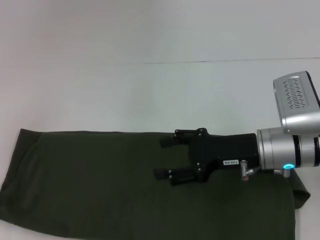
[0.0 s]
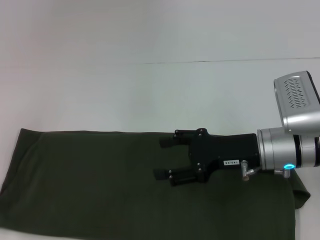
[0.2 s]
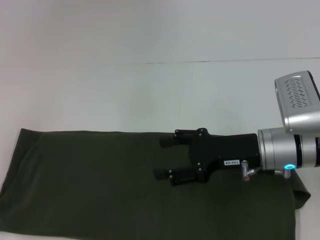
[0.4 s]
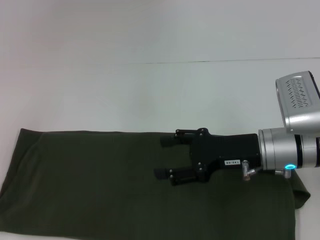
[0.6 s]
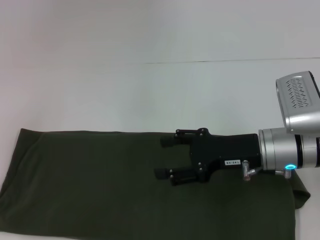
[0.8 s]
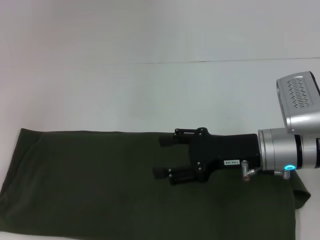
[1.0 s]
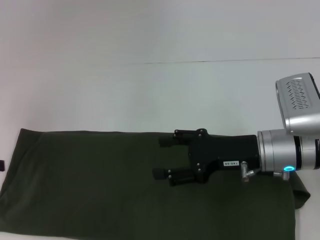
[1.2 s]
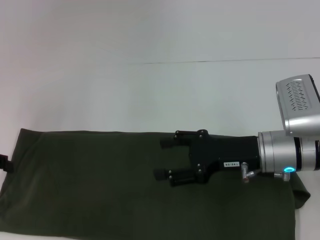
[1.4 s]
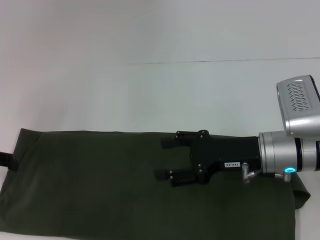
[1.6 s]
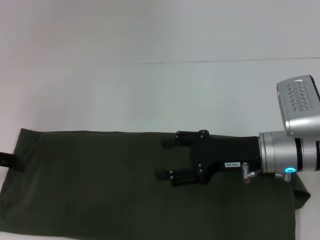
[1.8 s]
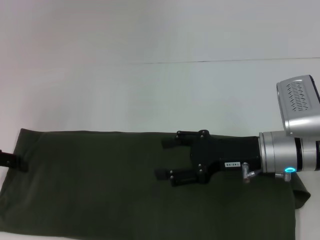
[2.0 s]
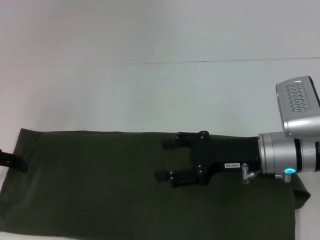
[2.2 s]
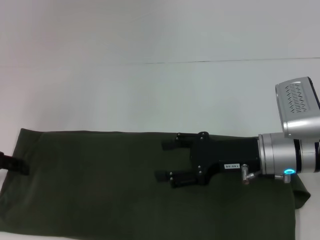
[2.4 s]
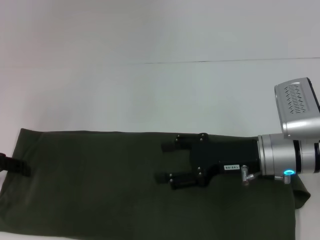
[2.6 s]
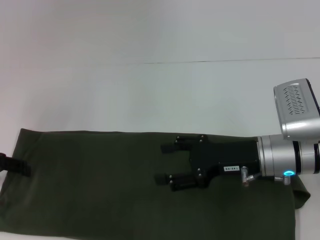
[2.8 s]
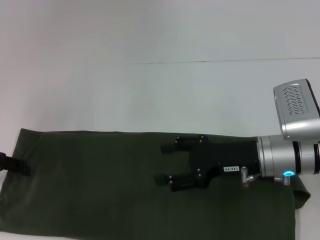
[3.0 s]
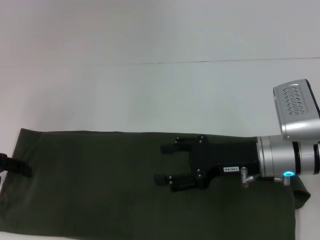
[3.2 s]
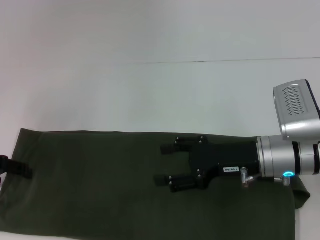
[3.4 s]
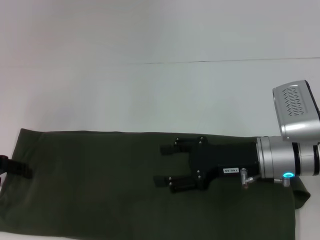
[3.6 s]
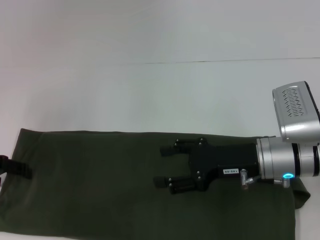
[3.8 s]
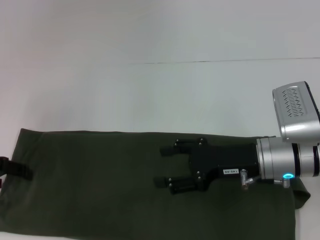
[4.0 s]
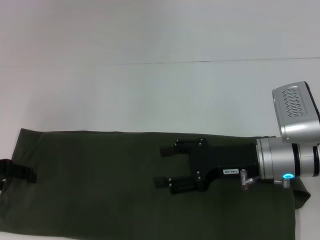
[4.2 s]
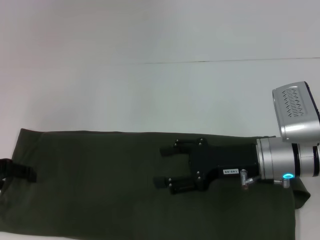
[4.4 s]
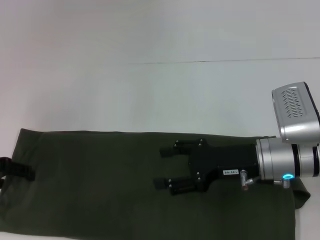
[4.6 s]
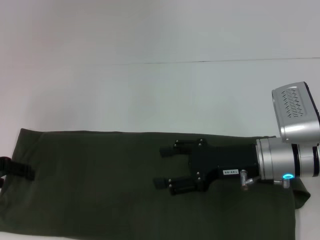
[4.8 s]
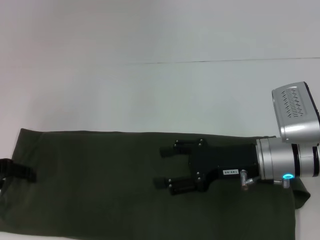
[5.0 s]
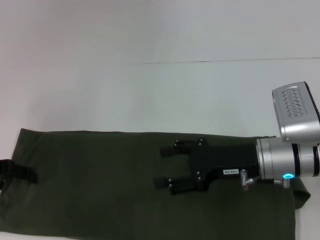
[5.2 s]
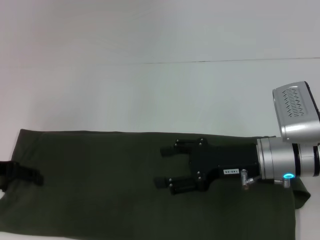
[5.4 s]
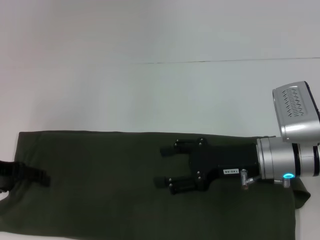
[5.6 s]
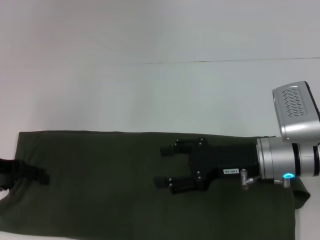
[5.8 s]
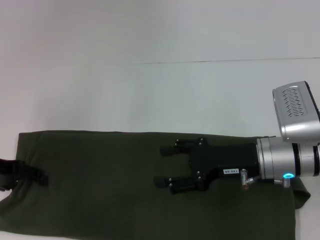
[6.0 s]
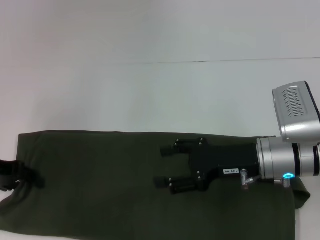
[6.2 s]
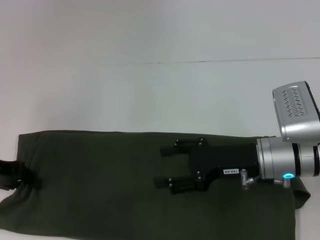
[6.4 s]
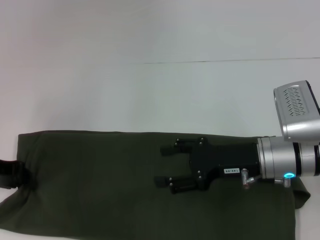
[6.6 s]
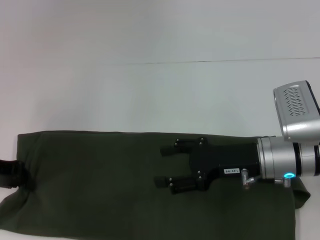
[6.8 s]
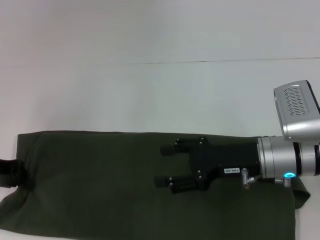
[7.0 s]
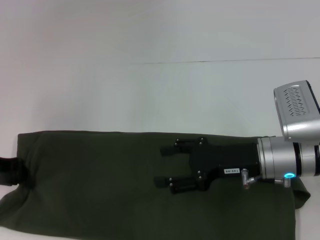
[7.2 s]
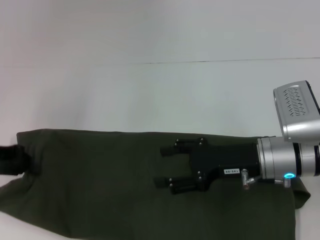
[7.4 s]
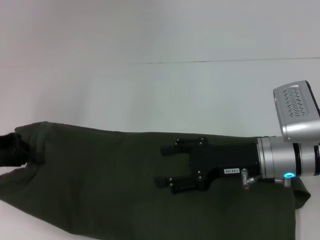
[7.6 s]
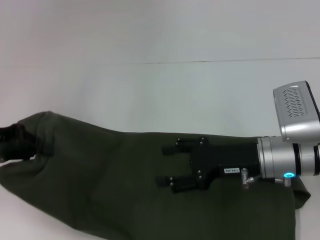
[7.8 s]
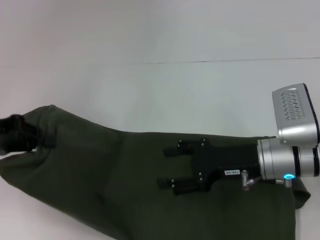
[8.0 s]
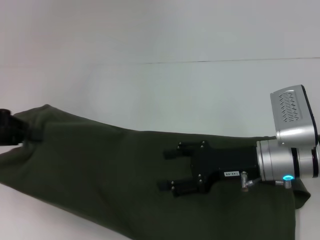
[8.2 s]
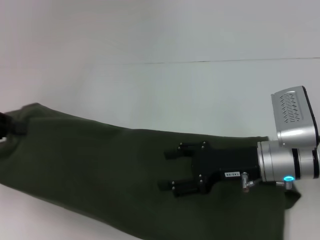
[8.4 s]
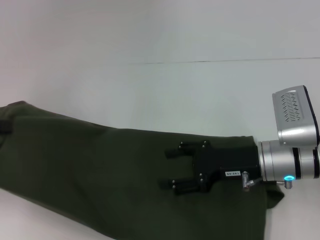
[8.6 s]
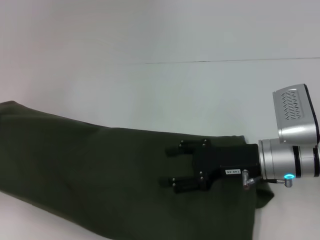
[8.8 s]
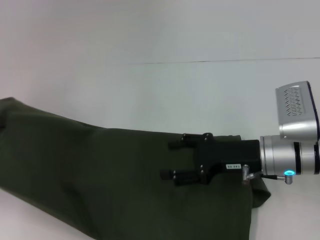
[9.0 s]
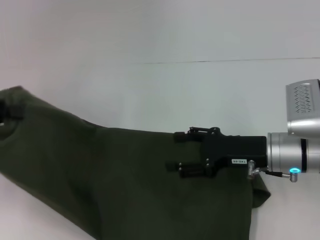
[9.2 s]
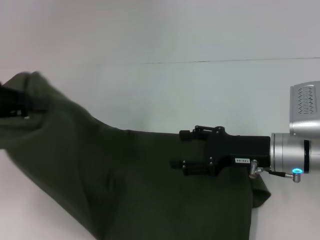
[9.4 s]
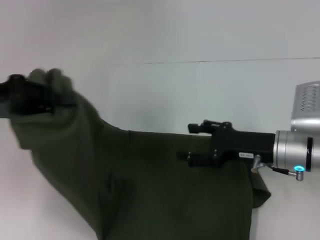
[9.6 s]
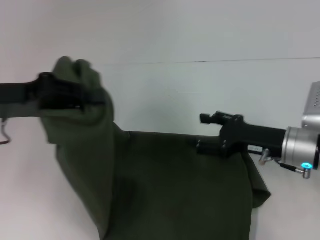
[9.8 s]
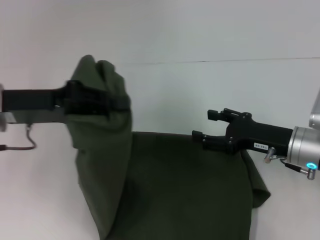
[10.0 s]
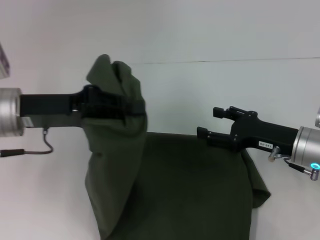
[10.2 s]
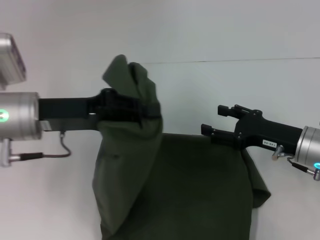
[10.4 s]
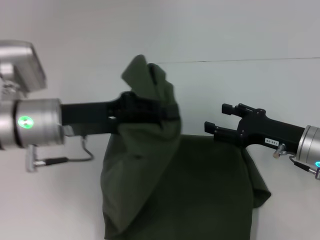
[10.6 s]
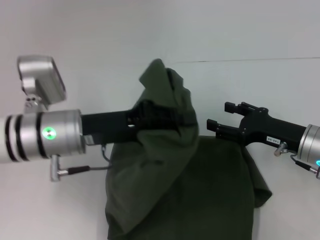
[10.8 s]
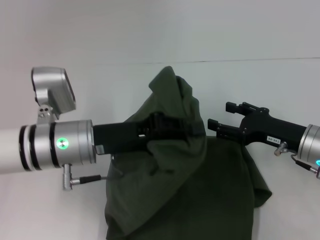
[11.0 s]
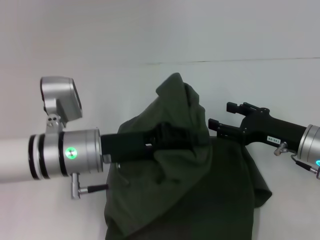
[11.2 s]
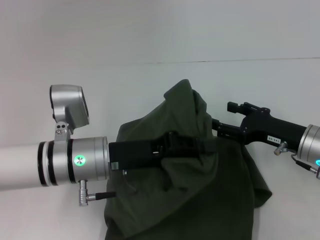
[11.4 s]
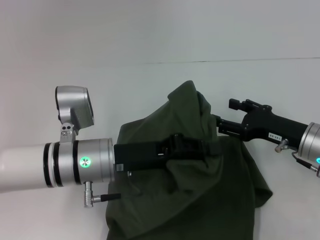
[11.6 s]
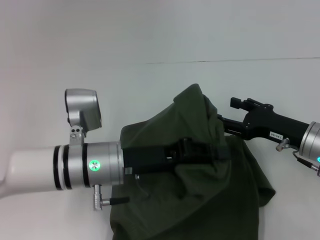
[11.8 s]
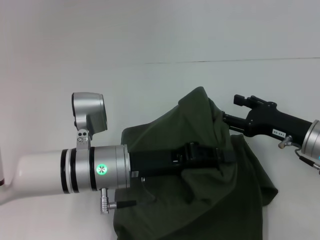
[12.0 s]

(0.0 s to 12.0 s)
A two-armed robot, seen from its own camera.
0.0 s - 1.6 s: The left gripper moves forward, approximately 5 cm, and opens its fingers.
1.6 s - 3.0 s: The grippers move only a little.
3.0 s - 4.4 s: Both grippers stay put.
6.0 s - 7.6 s: The left gripper closes up.
7.6 s - 9.0 s: The left gripper is displaced to the left by roughly 5 cm.
9.0 s - 10.4 s: The right gripper goes some 5 cm to the right, while the left gripper heads to the right, covering about 20 cm.
10.4 s - 12.0 s: The left gripper goes some 15 cm to the right and downward.

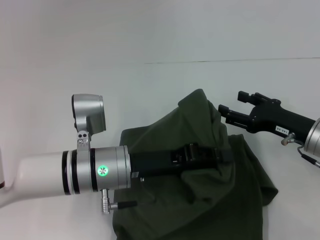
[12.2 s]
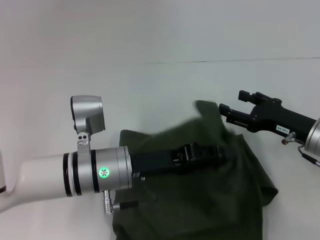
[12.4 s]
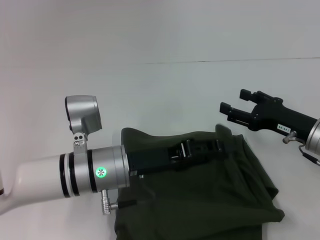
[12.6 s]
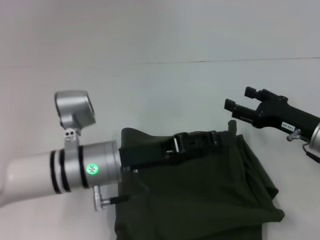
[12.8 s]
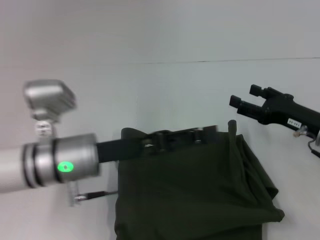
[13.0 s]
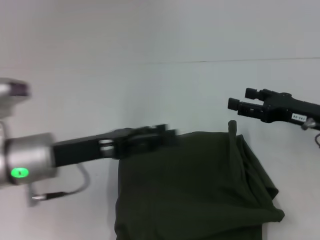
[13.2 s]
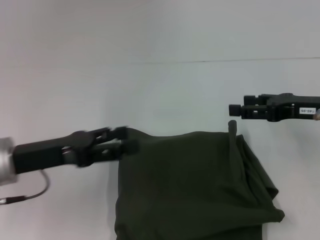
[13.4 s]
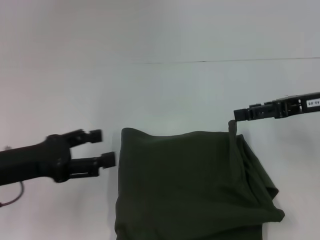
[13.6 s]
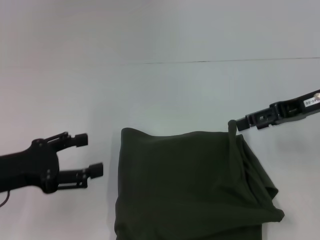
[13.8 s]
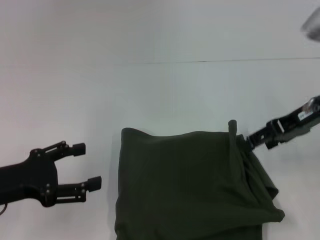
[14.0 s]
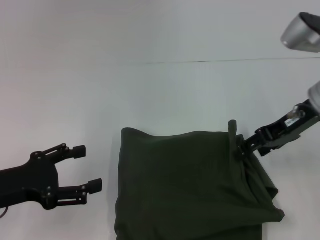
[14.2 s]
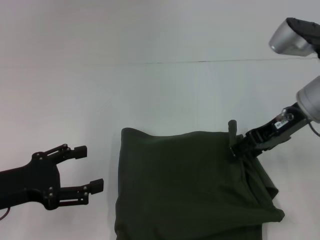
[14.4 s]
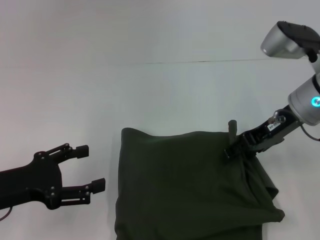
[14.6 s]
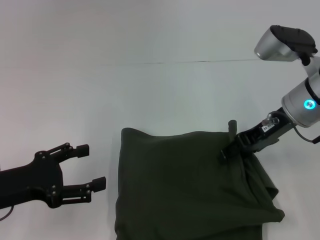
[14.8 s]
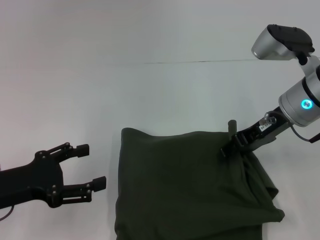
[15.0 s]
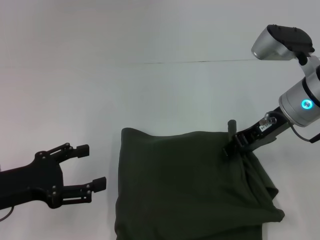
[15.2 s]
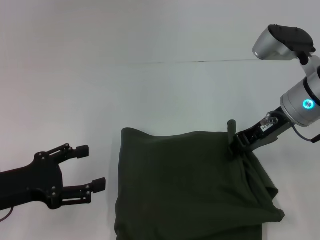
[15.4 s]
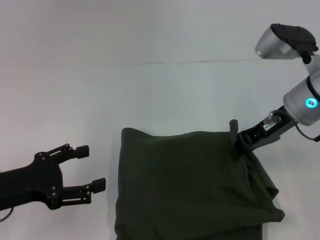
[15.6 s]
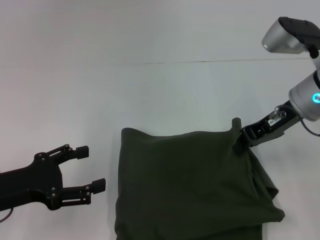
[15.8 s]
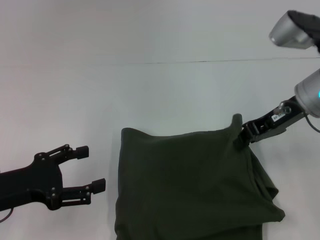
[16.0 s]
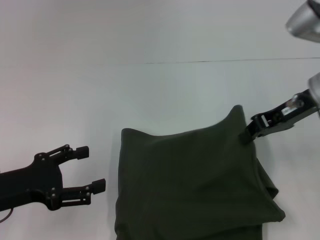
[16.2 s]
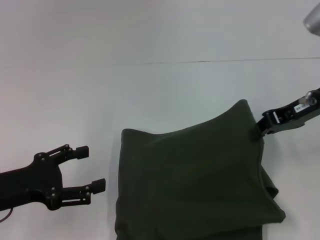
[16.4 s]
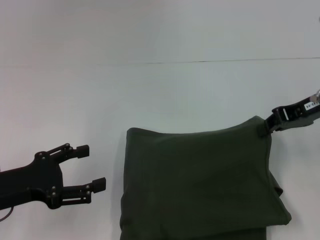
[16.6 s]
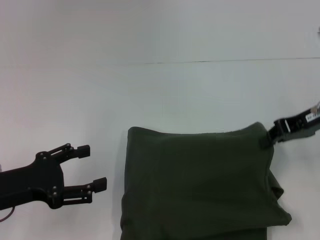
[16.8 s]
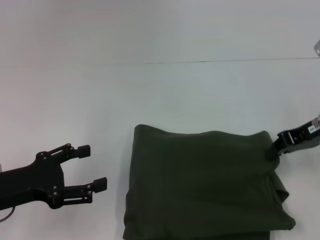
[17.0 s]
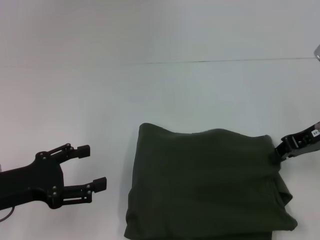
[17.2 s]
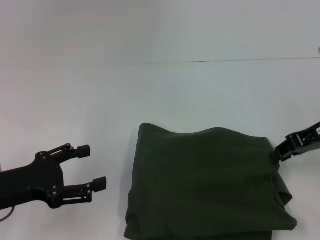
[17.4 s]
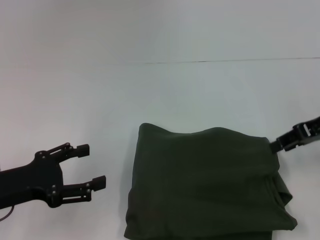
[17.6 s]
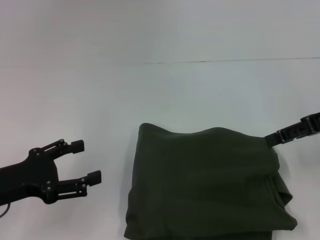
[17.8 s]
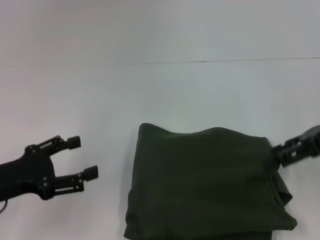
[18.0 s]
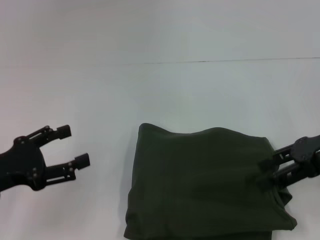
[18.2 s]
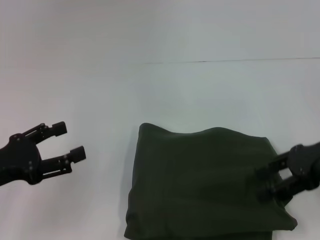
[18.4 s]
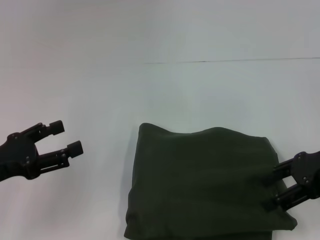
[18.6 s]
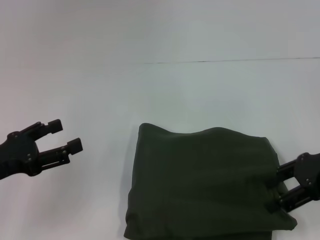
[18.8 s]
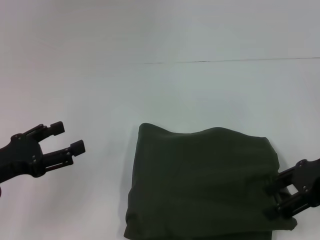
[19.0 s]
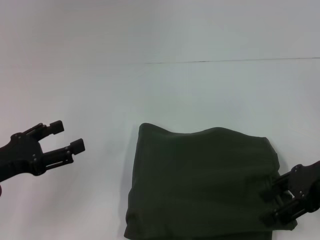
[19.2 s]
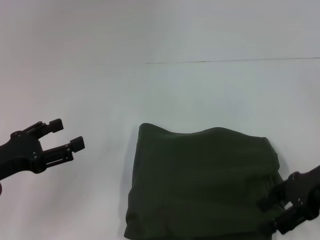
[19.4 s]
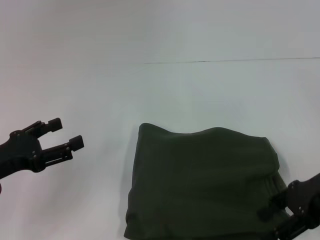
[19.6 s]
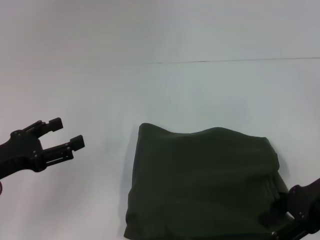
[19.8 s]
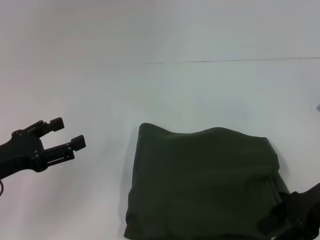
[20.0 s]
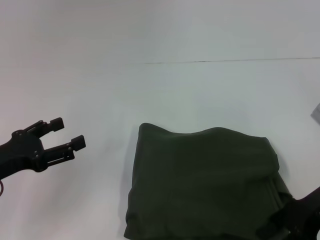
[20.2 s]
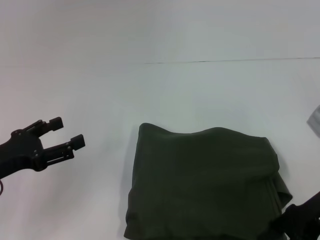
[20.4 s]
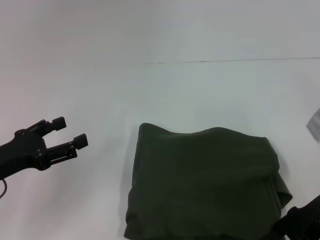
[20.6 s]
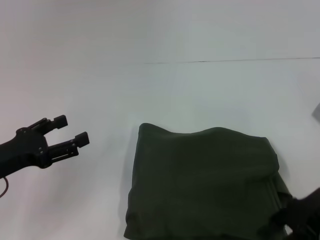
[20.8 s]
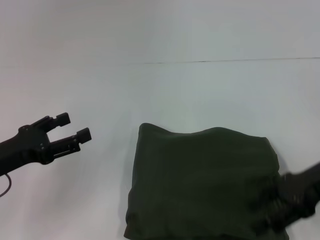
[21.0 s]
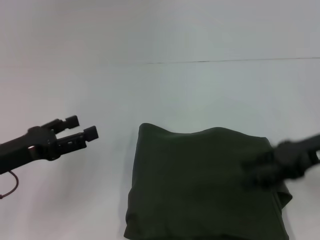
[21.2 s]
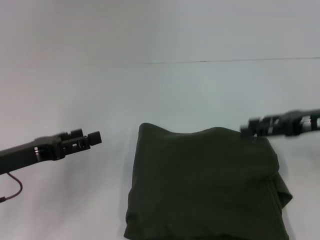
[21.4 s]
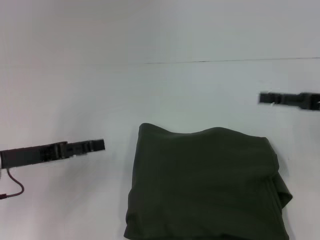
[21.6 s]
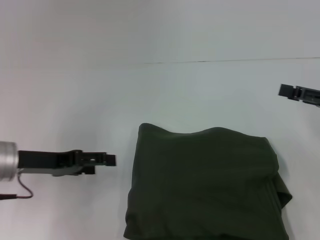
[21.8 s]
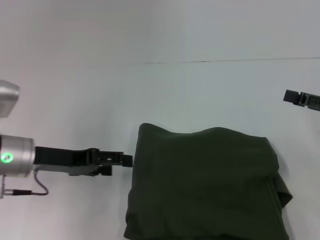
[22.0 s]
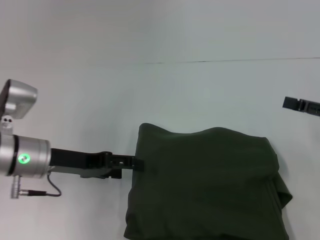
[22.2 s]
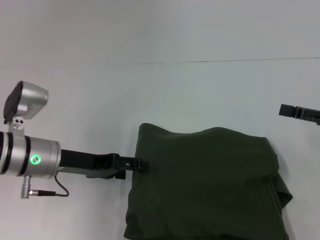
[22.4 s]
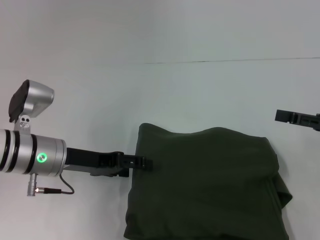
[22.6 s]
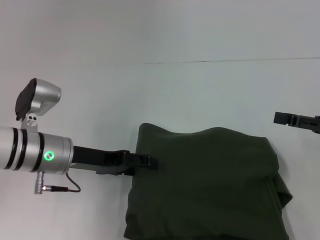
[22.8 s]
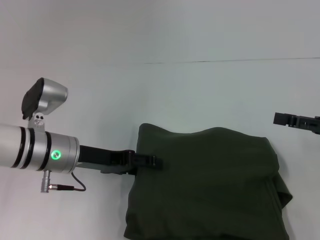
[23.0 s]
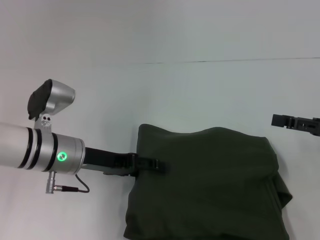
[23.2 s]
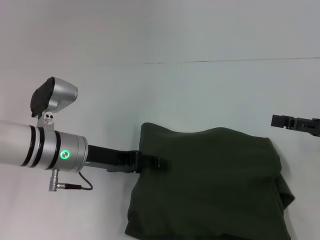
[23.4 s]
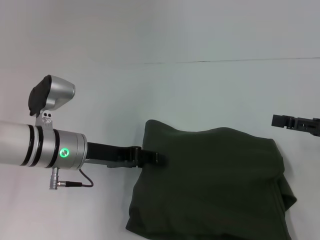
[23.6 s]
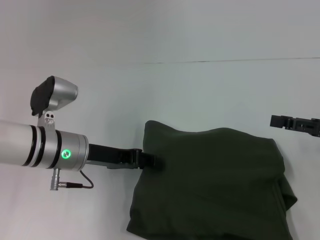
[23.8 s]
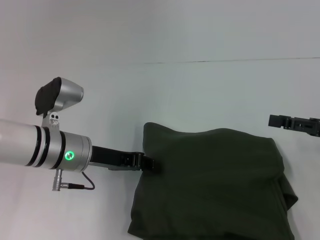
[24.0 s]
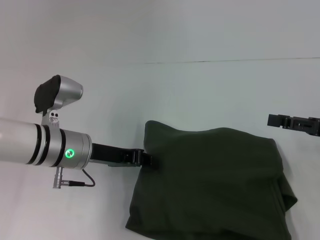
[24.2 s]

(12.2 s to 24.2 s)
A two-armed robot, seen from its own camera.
12.2 s - 13.8 s: The left gripper is displaced to the left by some 20 cm, and opens up; the right gripper goes about 15 cm upward.
13.8 s - 15.2 s: The right gripper travels to the left by some 5 cm.
15.2 s - 16.6 s: The right gripper shifts approximately 5 cm to the right, and closes.
16.6 s - 18.2 s: The right gripper ends up approximately 5 cm from where it was, and opens its fingers.
18.2 s - 19.8 s: The right gripper ends up roughly 5 cm from where it was.
19.8 s - 21.2 s: There are only small adjustments of the grippers.
21.2 s - 22.6 s: The right gripper heads to the right, covering roughly 5 cm. The left gripper moves to the right and forward, about 10 cm.
22.6 s - 24.2 s: The left gripper closes.
